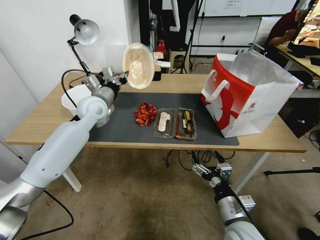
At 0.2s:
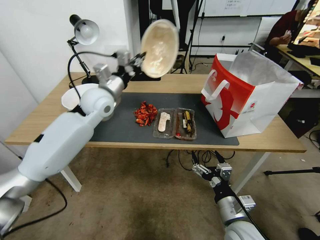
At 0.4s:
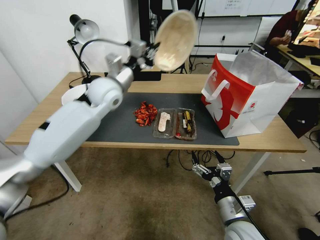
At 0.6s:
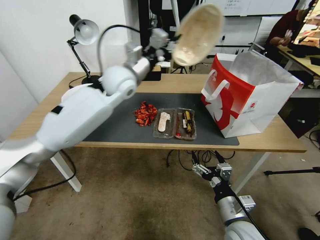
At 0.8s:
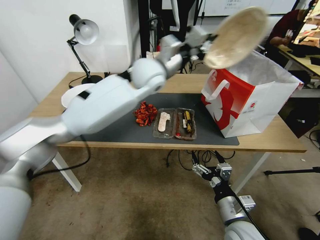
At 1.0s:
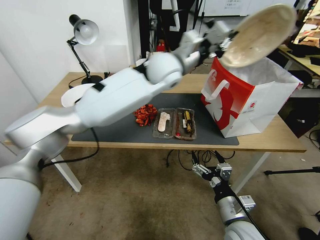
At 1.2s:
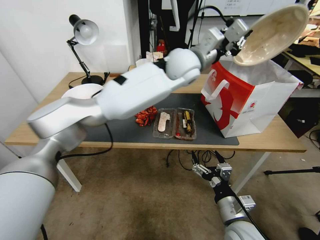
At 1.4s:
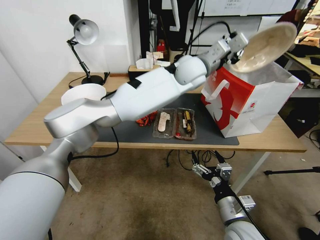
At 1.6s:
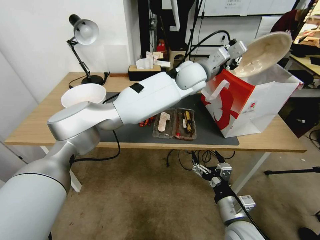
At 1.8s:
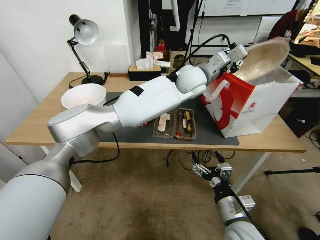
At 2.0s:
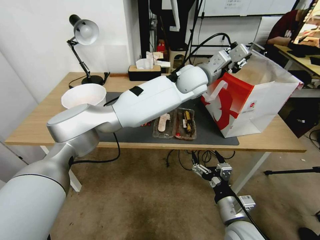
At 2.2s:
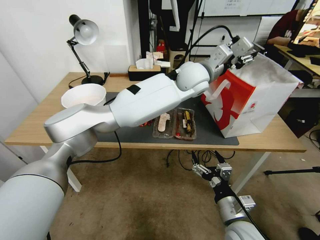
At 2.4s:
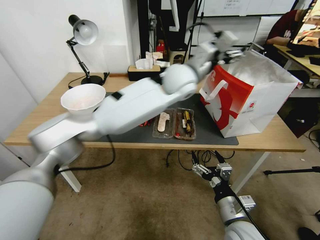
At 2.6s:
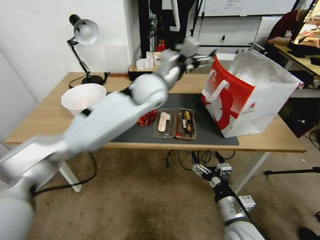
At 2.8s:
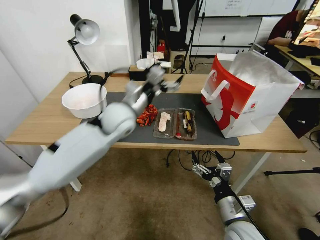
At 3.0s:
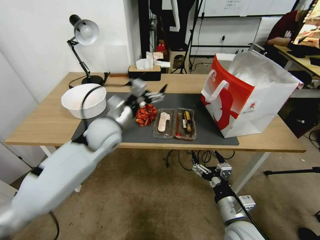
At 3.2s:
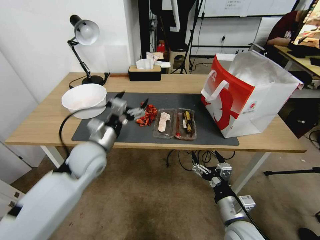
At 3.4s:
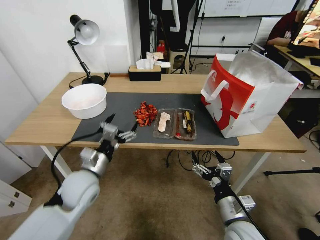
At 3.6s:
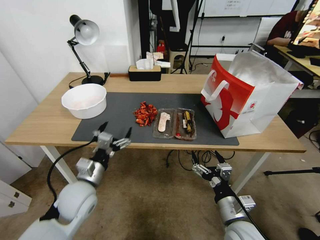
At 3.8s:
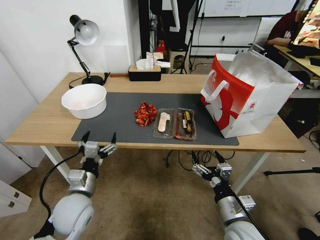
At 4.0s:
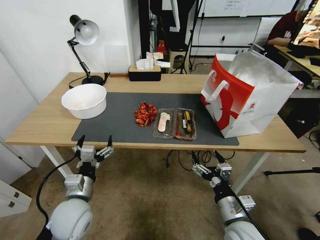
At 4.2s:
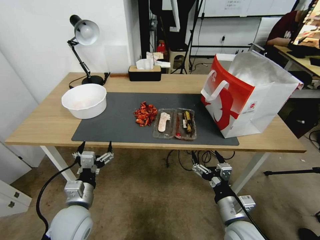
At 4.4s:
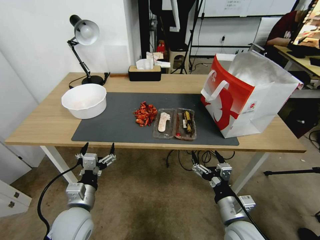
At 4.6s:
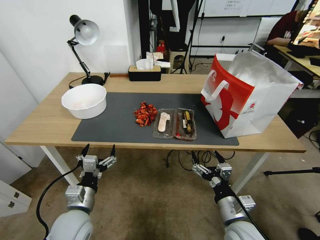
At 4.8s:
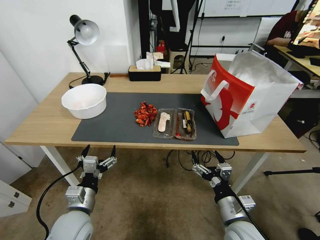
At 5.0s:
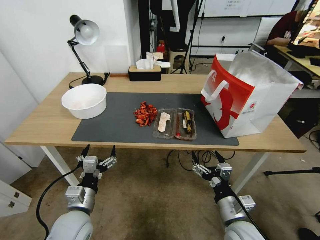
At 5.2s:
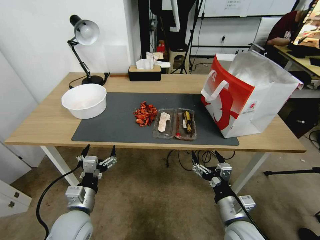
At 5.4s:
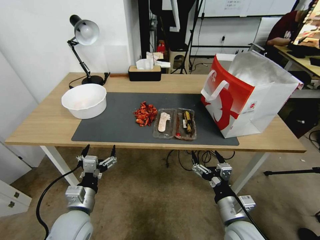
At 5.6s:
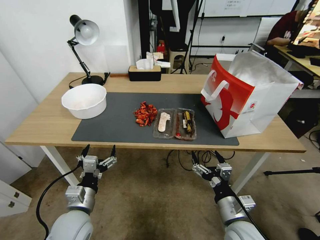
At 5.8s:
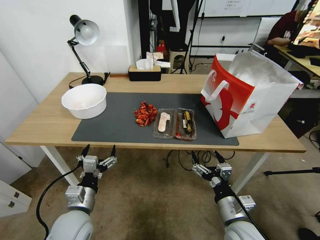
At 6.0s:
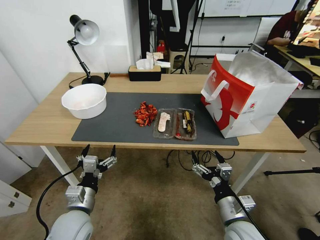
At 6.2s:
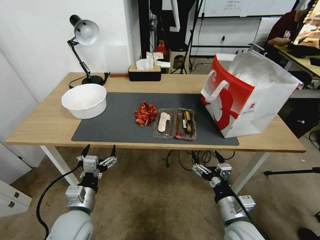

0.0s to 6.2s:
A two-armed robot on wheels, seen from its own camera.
0.0s to 1.6s: The left gripper moves to the right, roughly 30 cm.
1.6s to 3.2s: The left gripper travels to the left, backward and downward by some 40 cm, and opens.
3.2s to 4.6s: The left gripper is displaced backward and downward by some 20 cm.
4.6s to 6.2s: Both grippers stay about where they are.

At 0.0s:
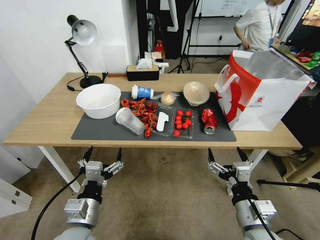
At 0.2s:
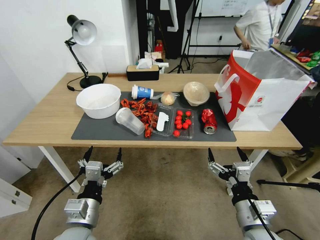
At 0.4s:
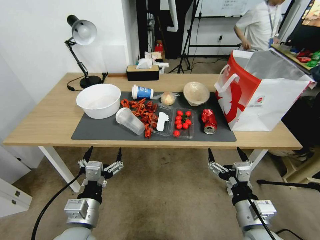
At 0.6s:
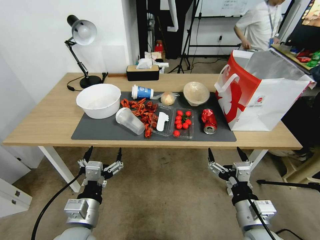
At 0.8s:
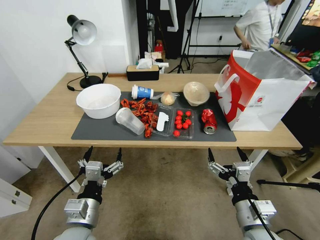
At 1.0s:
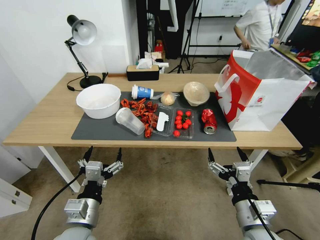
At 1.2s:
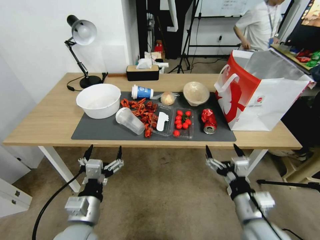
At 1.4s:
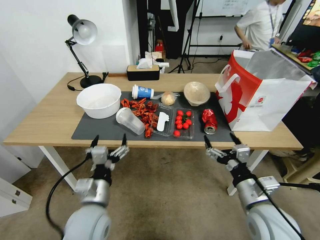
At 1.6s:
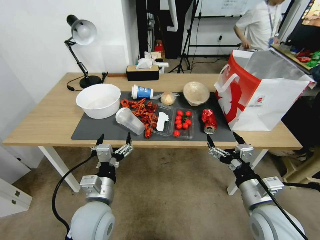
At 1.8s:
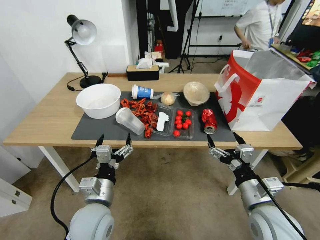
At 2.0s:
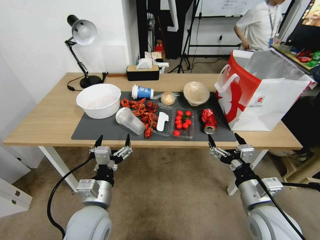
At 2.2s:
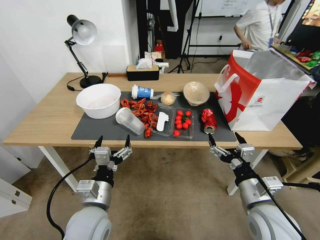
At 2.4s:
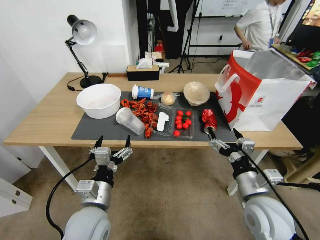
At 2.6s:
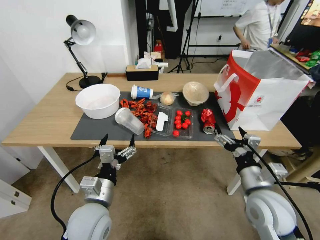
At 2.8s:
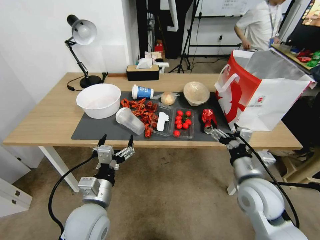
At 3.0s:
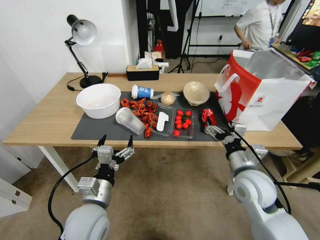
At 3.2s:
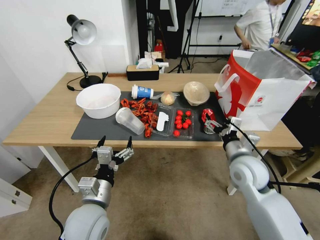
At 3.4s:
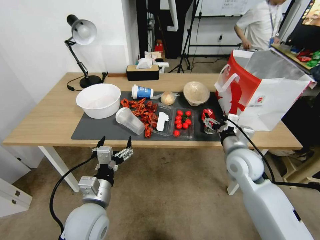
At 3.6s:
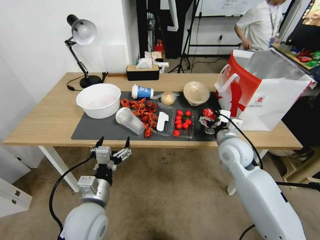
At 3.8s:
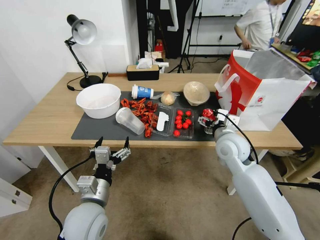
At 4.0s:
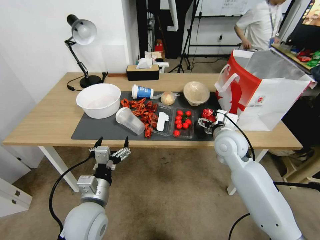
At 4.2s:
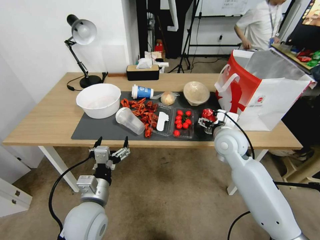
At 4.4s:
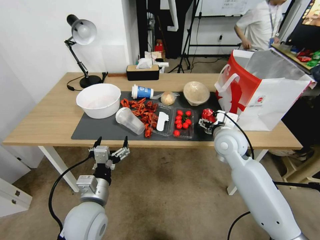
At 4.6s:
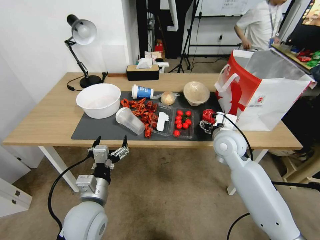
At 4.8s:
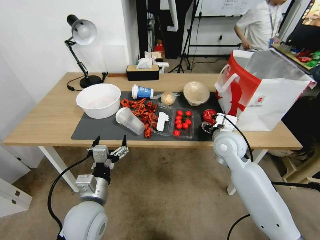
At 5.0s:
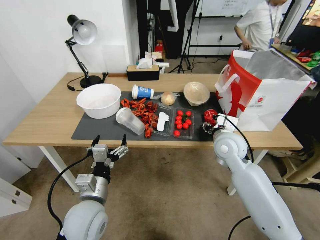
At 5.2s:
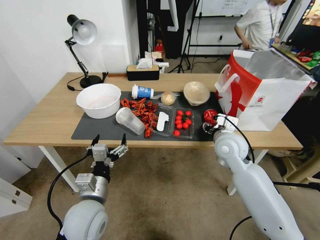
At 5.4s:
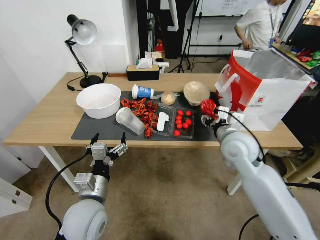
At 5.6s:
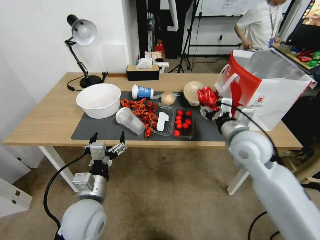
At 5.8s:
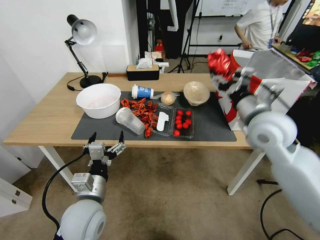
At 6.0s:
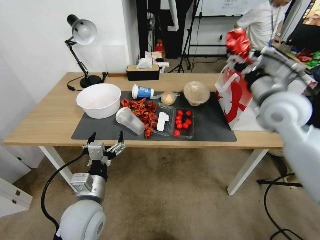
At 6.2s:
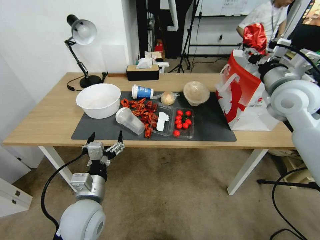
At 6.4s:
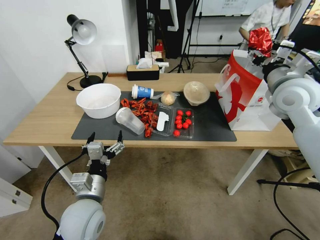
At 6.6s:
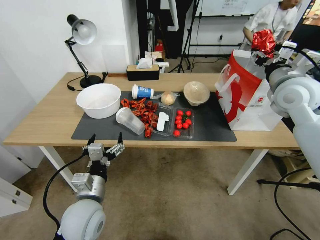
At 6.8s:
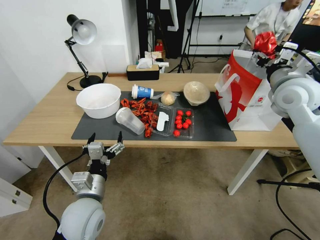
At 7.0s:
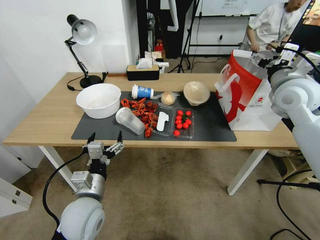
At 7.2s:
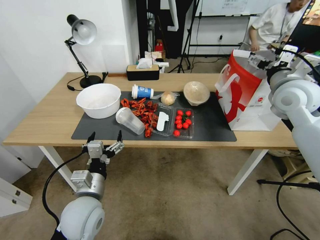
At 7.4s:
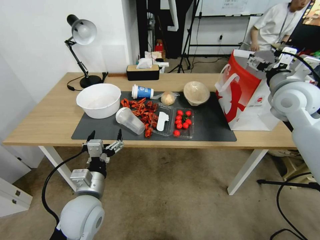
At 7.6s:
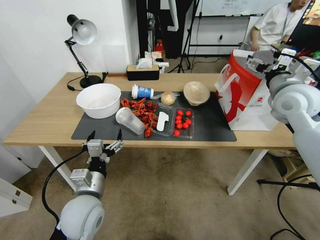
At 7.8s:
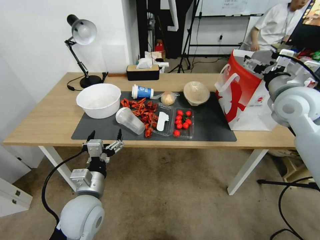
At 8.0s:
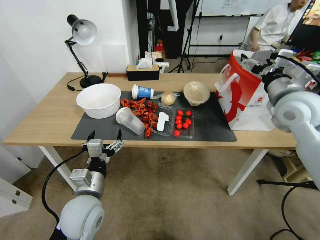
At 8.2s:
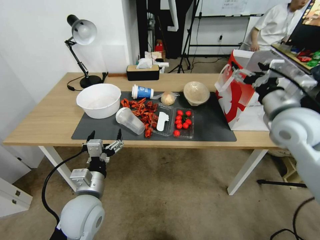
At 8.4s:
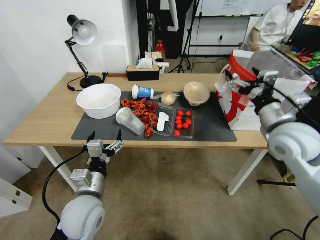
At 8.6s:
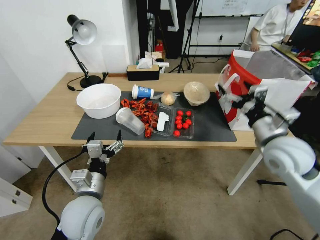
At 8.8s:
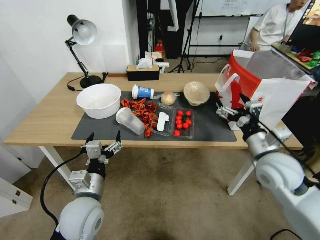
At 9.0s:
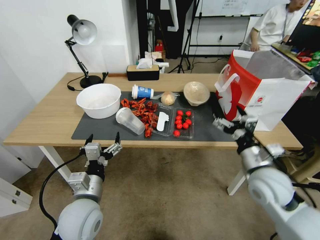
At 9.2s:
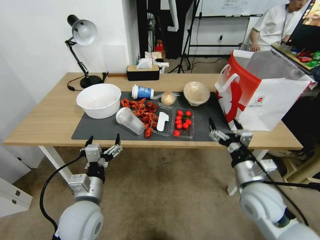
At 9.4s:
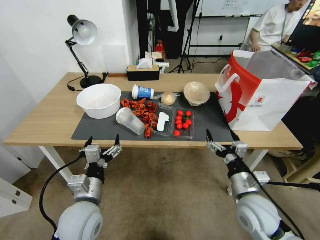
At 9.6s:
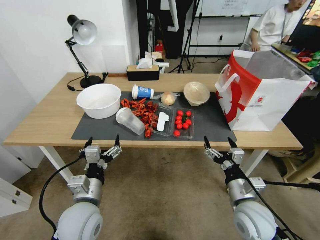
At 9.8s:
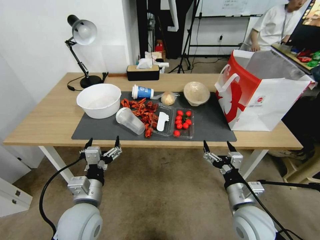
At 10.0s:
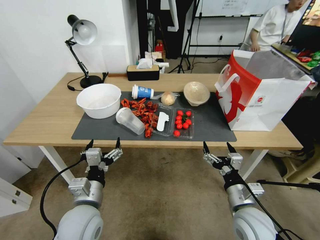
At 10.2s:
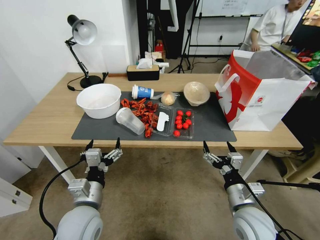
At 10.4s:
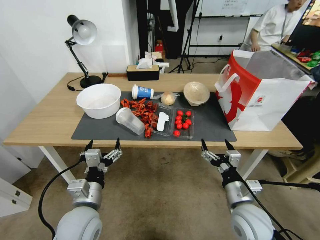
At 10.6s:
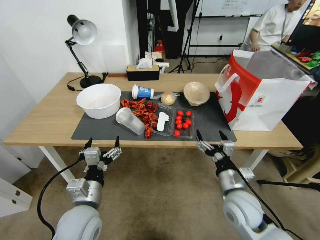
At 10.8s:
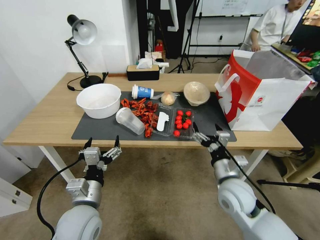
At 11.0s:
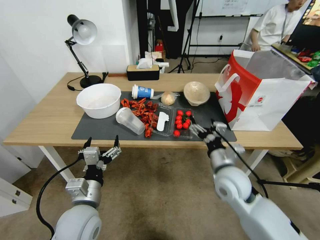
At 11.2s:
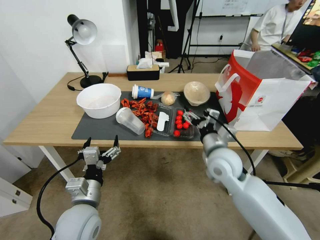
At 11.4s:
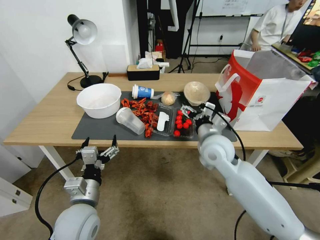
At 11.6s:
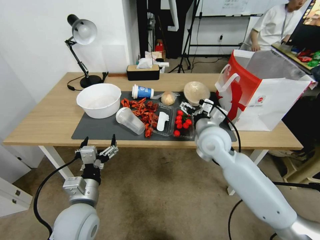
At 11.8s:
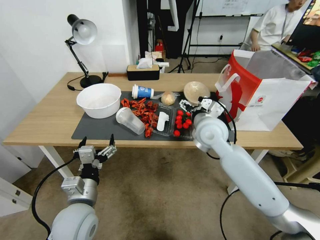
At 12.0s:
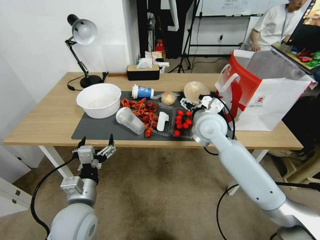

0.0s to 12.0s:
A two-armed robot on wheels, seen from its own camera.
1.6s to 3.0s: The right gripper is displaced forward by some 10 cm.
3.0s to 4.4s: The right gripper moves forward, some 10 cm.
4.4s to 6.0s: The right gripper goes roughly 20 cm upward and to the right, and closes up.
6.0s to 7.6s: The right gripper shifts by roughly 5 cm, and opens its fingers.
7.6s to 9.0s: The right gripper moves downward and backward, roughly 25 cm.
9.0s to 10.4s: The right gripper shifts approximately 10 cm downward and backward.
10.4s to 12.0s: The right gripper moves forward, upward and to the left, roughly 30 cm.

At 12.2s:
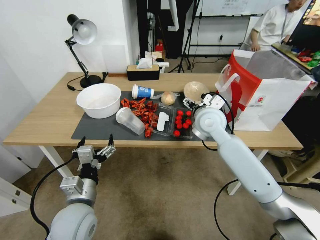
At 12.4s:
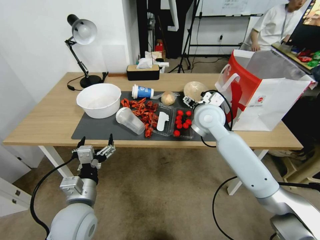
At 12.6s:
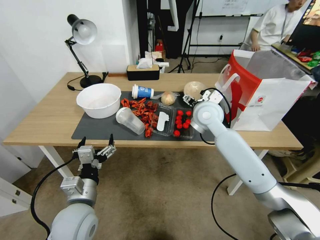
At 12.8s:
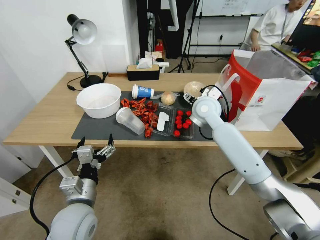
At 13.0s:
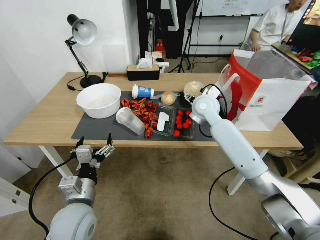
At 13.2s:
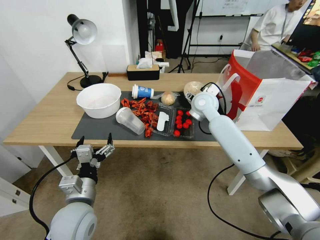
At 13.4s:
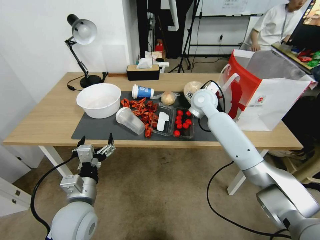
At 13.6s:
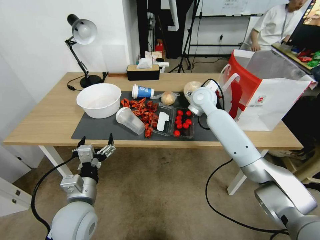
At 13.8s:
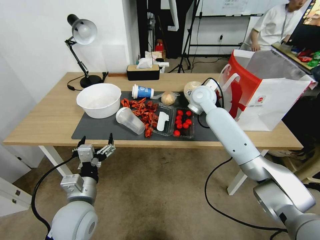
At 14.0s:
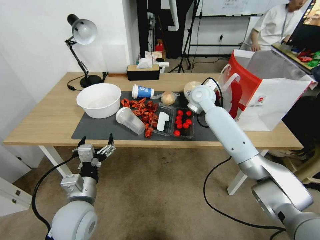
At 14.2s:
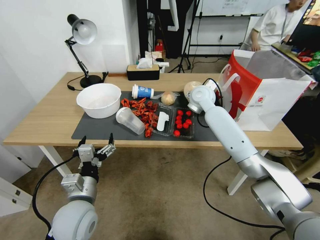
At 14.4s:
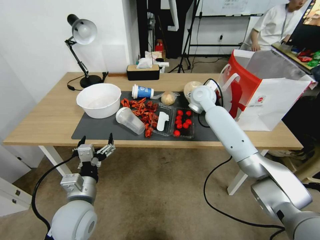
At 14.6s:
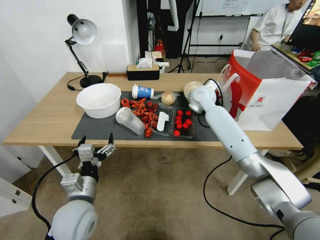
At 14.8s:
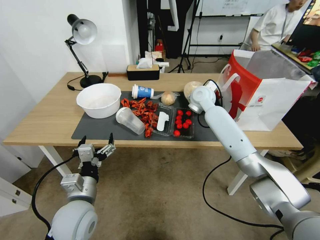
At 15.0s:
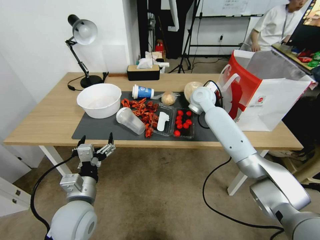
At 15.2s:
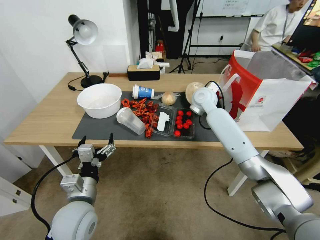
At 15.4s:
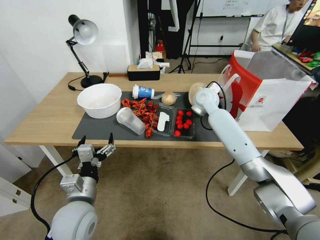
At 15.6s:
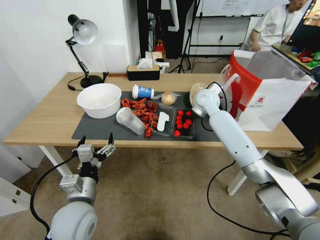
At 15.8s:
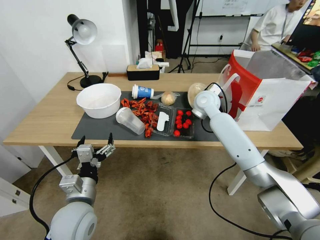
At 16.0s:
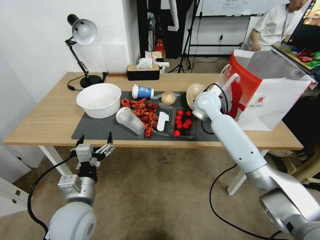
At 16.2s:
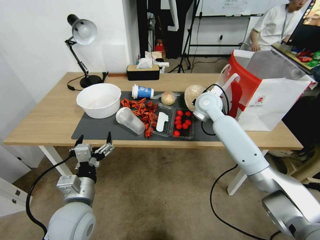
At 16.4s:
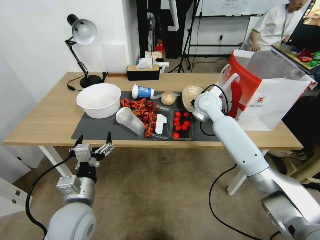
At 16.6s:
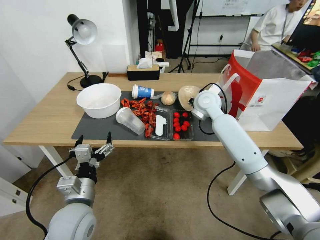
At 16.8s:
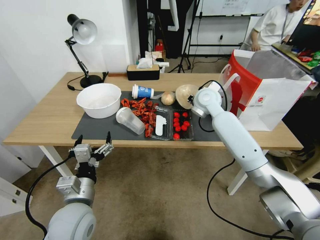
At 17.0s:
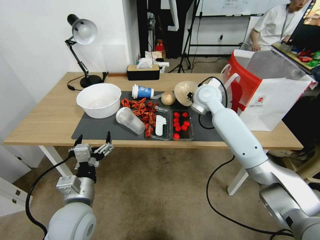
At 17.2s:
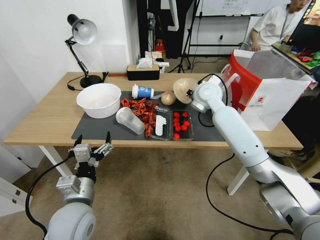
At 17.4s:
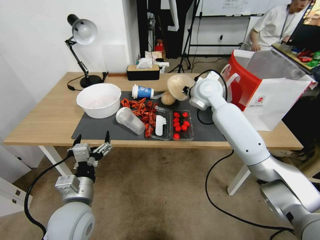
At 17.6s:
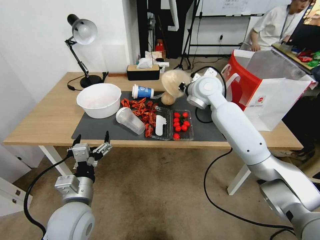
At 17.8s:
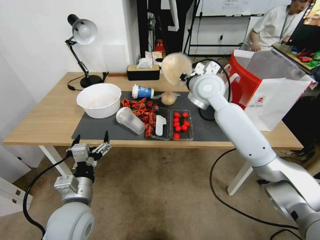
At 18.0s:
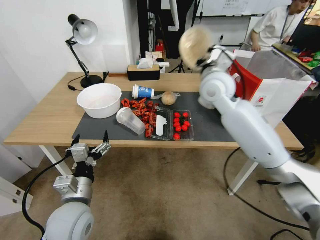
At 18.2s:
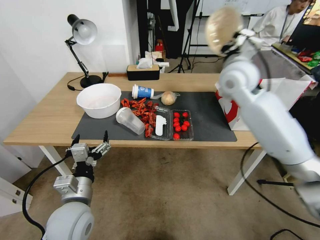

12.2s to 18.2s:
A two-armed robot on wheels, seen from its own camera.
12.2s to 13.8s: The right gripper goes roughly 10 cm forward.
13.8s to 15.2s: The right gripper closes.
15.2s to 16.6s: The grippers move only a little.
16.6s to 18.2s: The right gripper is displaced upward by about 15 cm.
